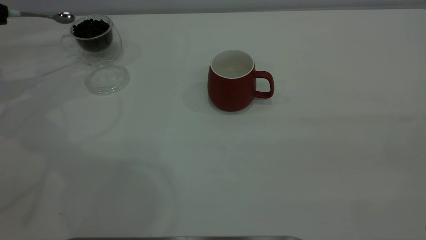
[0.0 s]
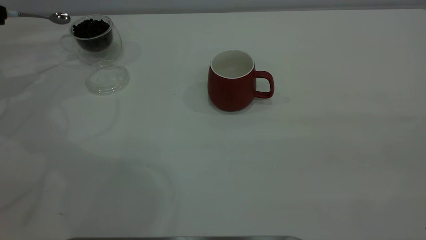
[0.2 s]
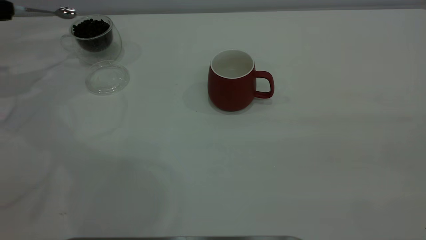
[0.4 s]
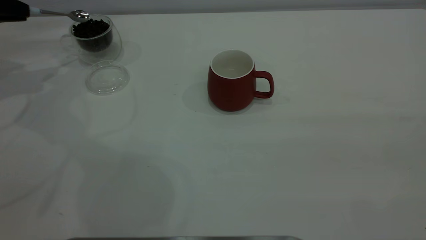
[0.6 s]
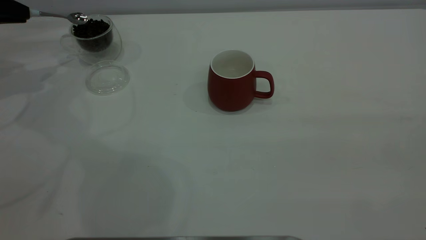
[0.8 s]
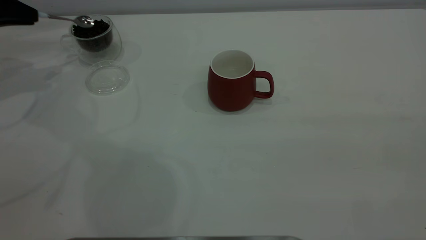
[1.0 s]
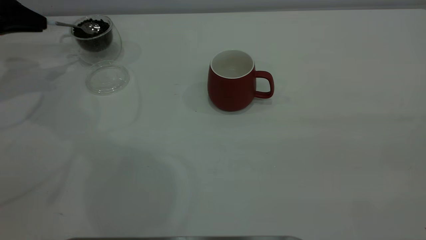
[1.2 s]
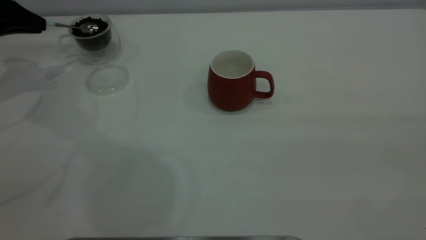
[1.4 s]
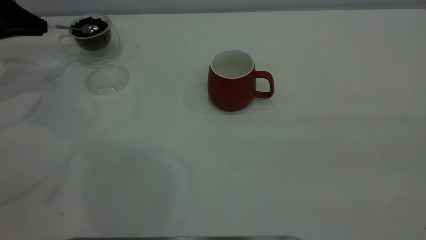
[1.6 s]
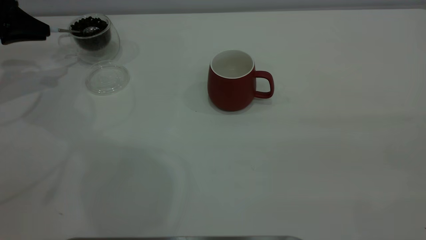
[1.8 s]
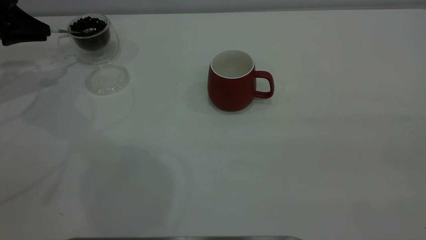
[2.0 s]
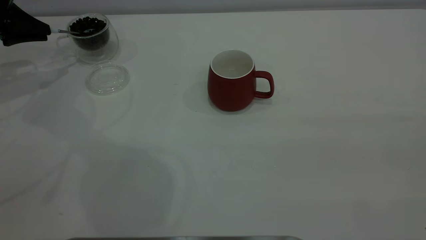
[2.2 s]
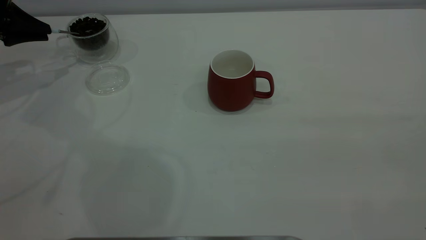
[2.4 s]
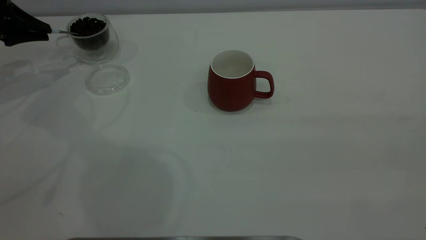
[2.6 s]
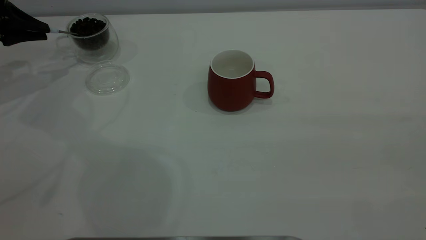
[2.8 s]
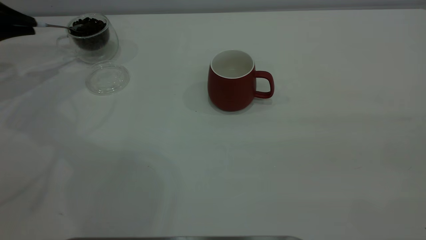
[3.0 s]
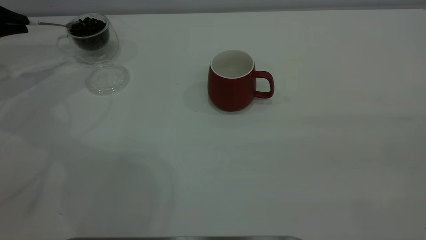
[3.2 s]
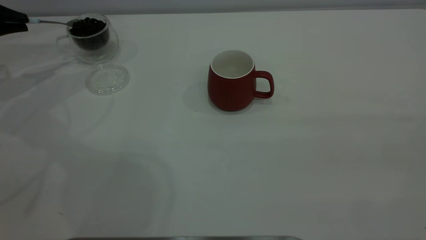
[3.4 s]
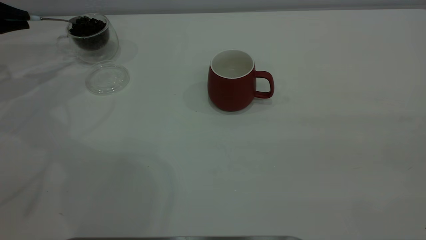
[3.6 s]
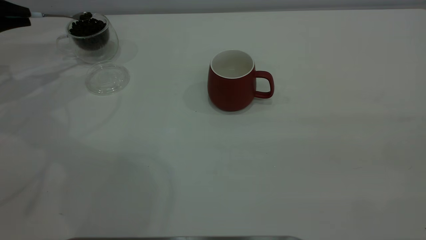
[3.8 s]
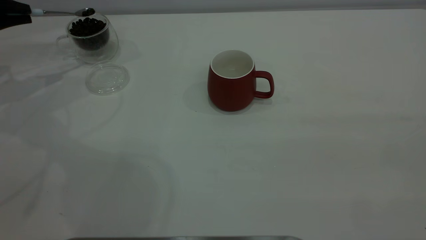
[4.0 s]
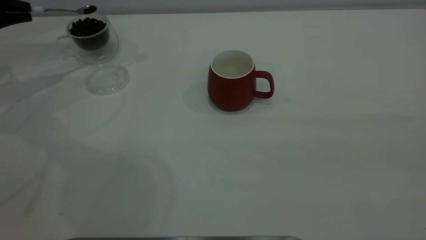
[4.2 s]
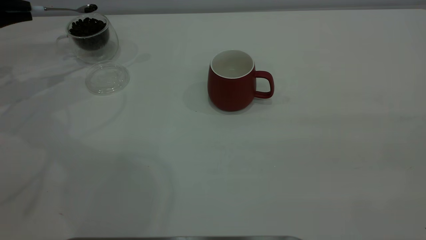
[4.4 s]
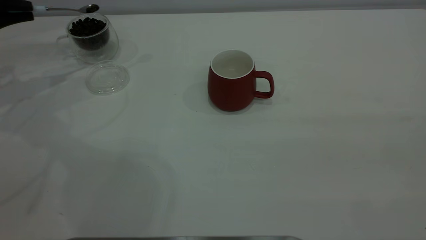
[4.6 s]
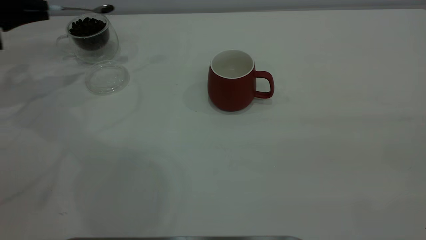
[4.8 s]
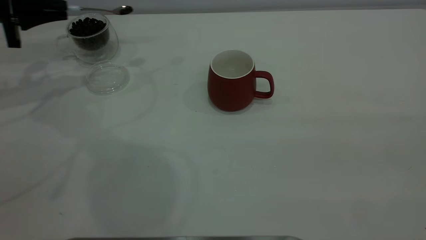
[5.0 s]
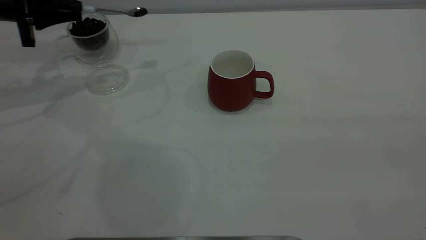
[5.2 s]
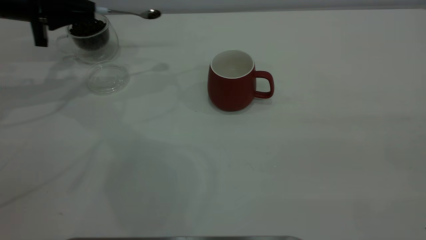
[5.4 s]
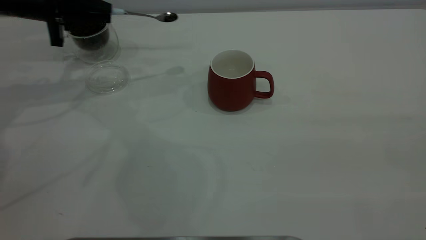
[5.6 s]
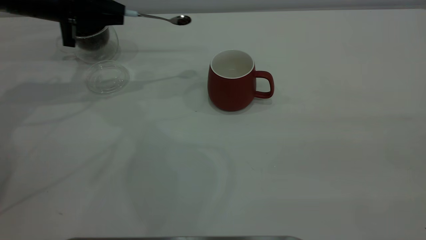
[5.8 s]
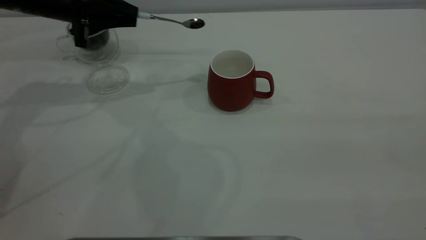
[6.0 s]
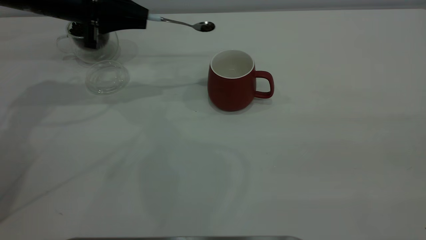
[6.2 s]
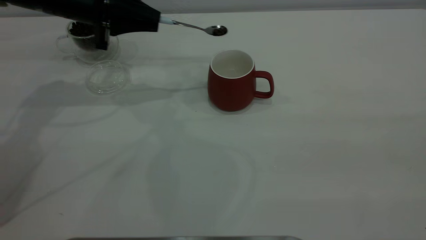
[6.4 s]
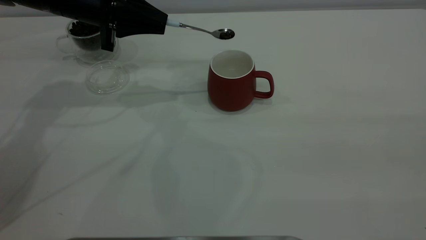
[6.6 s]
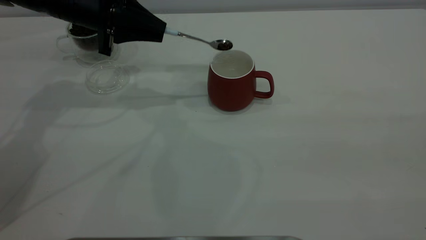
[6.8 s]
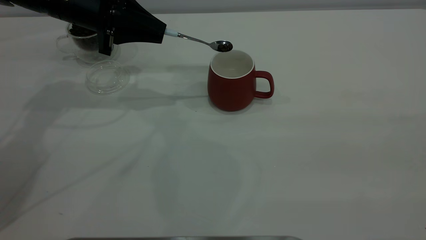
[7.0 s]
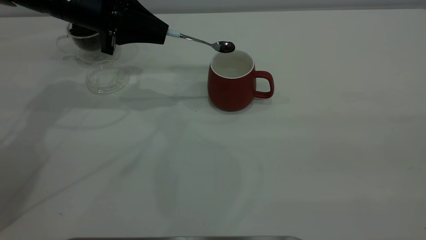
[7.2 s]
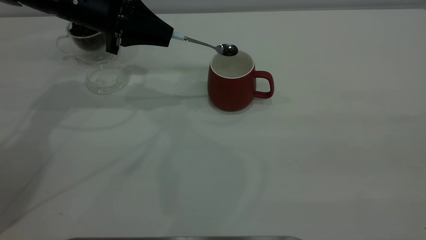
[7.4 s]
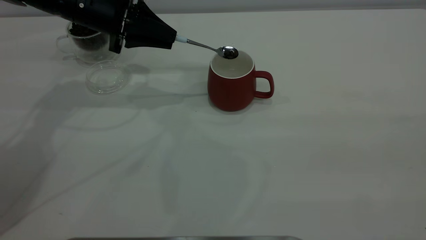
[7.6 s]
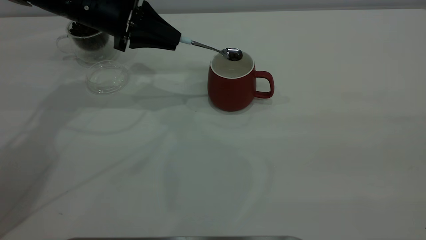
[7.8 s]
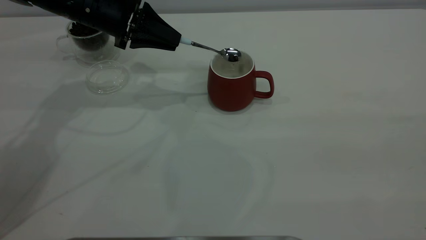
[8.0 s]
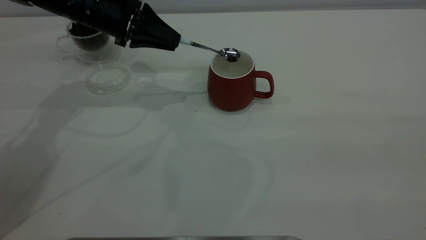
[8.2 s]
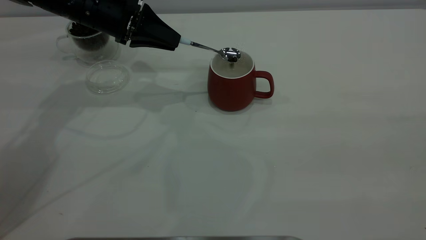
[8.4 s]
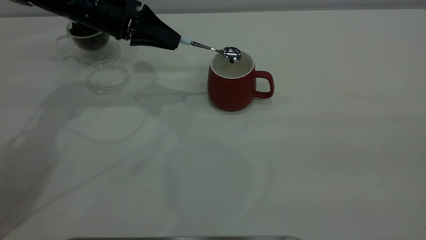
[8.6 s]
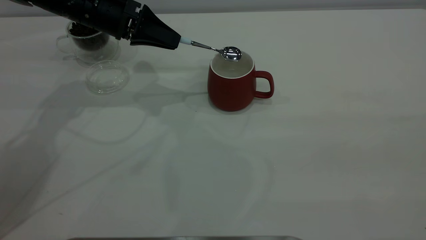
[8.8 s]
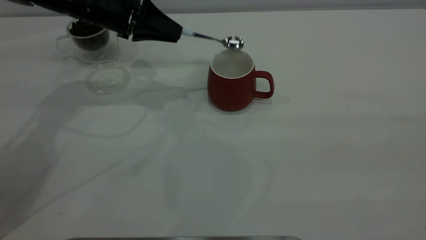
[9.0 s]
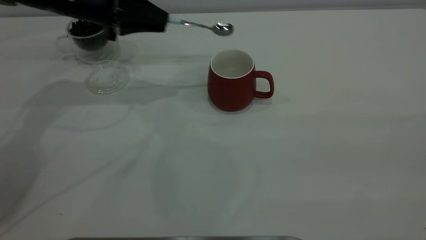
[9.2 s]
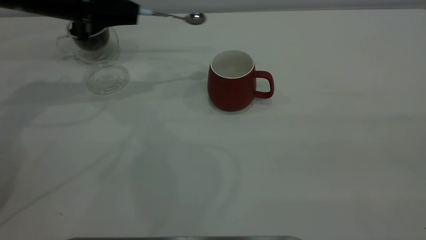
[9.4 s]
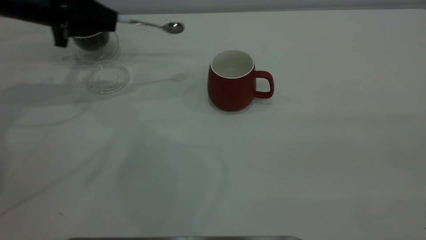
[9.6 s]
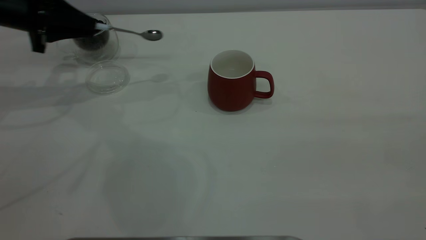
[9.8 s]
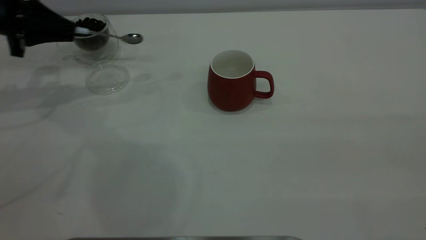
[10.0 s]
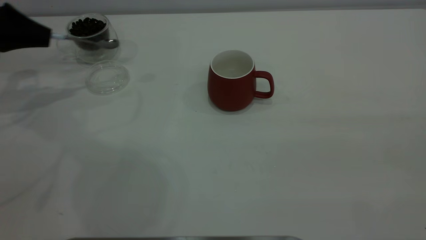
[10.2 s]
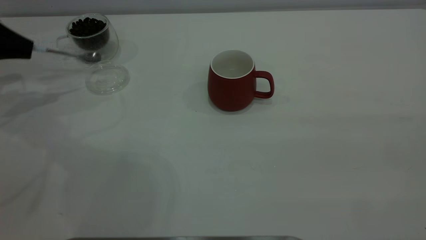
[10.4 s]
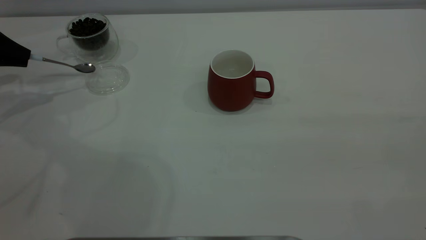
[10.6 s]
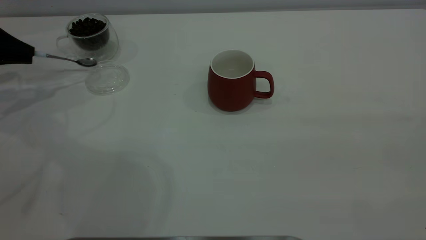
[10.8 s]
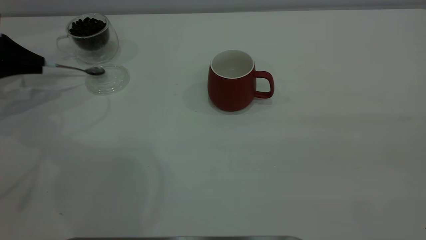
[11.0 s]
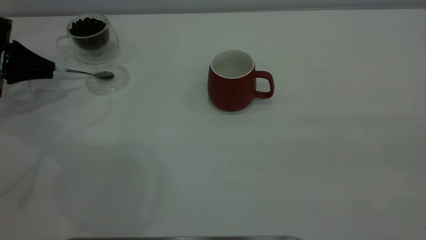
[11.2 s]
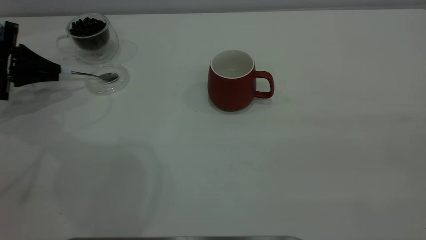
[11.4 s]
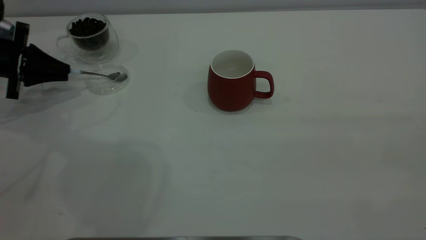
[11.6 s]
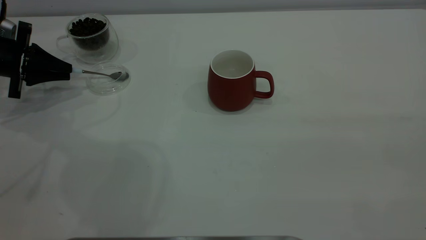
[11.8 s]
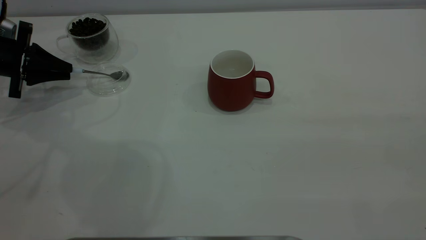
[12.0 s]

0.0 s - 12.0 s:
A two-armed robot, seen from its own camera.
Task of the whole recording: the right gripper place the red cup in the center of the table, the left gripper take the blue spoon from the cup lid and scoop out the coffee beans from the coffee cup and put them into the red cup, the left gripper put the spoon back into the cup lid.
Step, 0.0 s - 9.0 s: Scoop a spoonful of beans into the cup.
0.0 s - 1.6 s: The left gripper changes place by approximately 5 cm.
3.0 s - 4.4 s: The grippers move only a little.
4.4 s - 6.0 s: The left gripper is displaced to the right by some 20 cm.
6.0 s - 7.6 s: The left gripper travels to the right by roughly 5 cm.
9.0 s - 10.4 s: The left gripper shifts some 25 cm to the left.
10.4 s - 12.0 s: The left gripper is displaced downward by approximately 5 cm.

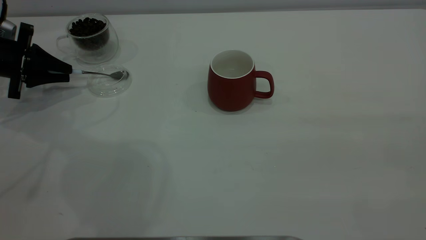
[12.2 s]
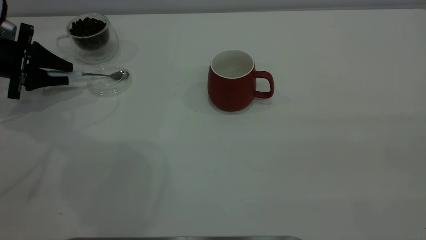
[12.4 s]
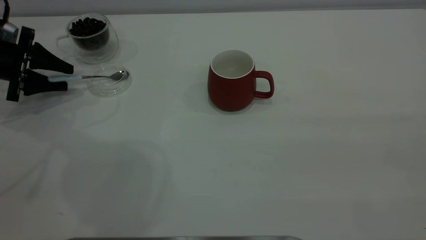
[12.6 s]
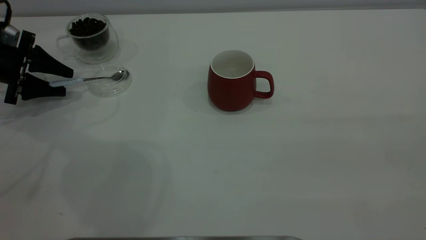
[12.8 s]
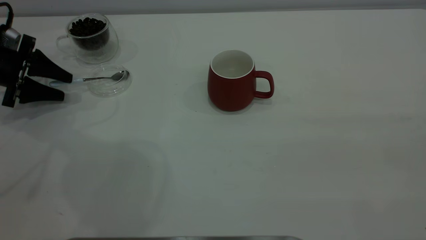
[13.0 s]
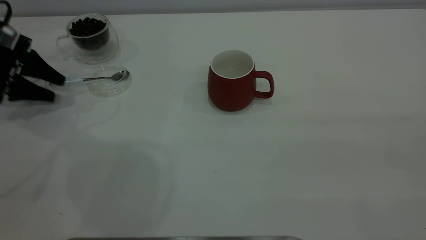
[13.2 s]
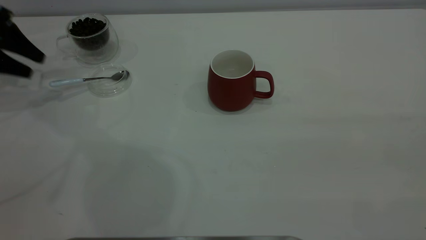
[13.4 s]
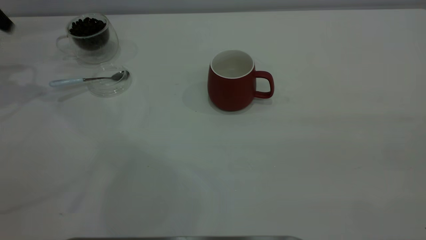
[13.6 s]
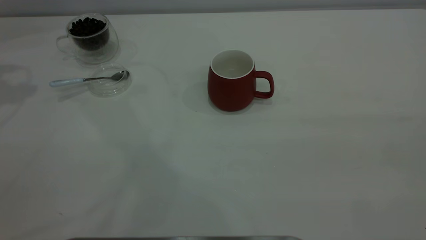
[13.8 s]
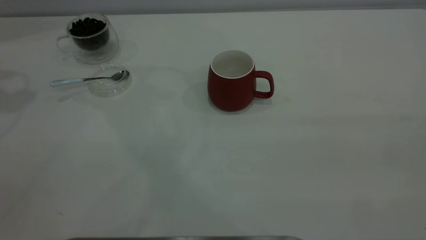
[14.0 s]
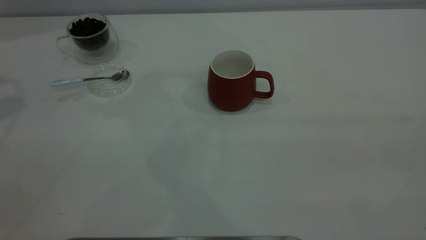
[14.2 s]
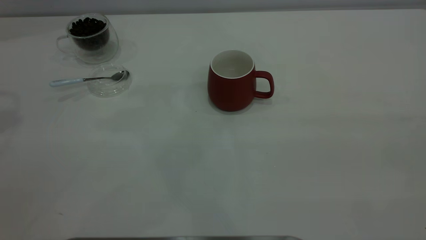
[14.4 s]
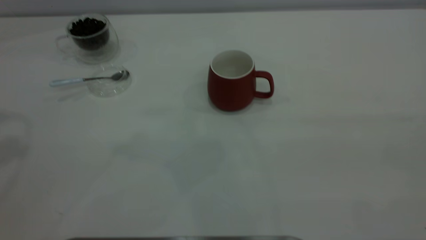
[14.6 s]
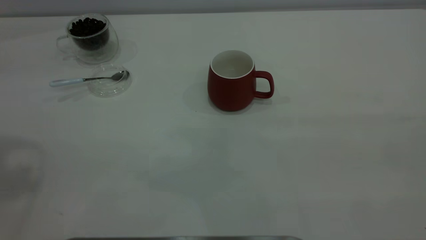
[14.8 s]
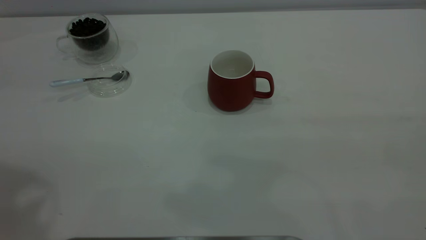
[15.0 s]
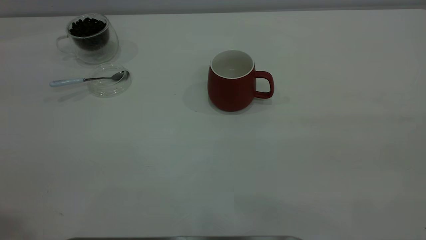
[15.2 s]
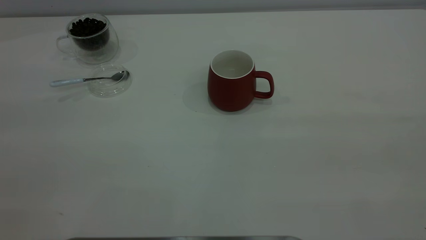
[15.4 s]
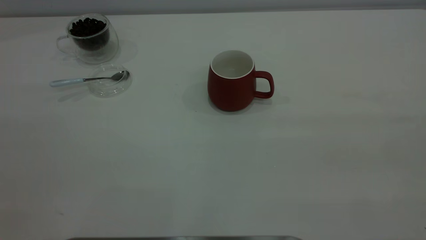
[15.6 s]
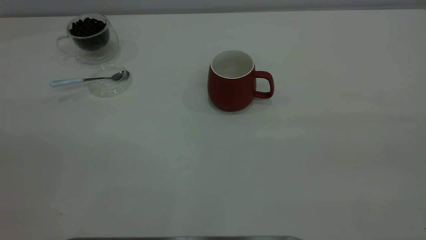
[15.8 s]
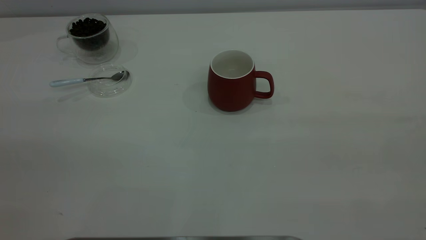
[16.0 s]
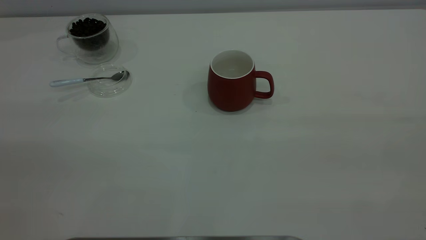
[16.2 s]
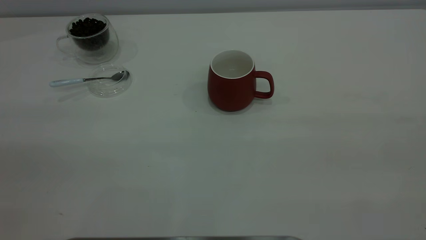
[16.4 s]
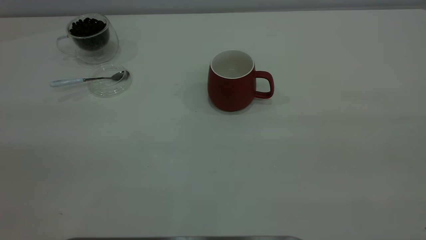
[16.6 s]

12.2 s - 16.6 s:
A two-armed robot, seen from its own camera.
Task of the whole recording: the right gripper place the red cup in the center of the table, the left gripper take the blue spoon from the cup lid and scoop out the coffee beans from the coffee cup and put them into the red cup, the left gripper put the spoon back into the cup lid.
12.2 s - 13.6 s: The left gripper moves upward, roughly 15 cm, and opens up.
